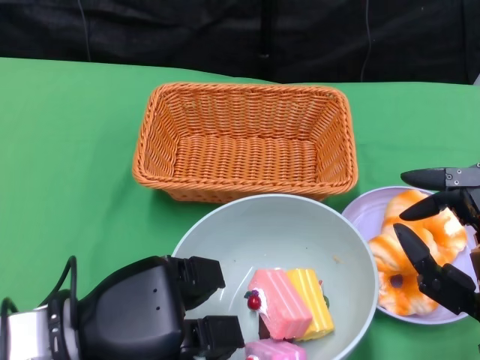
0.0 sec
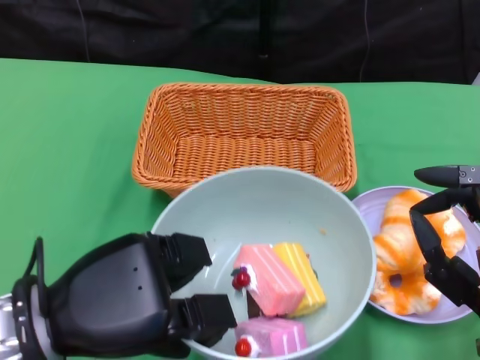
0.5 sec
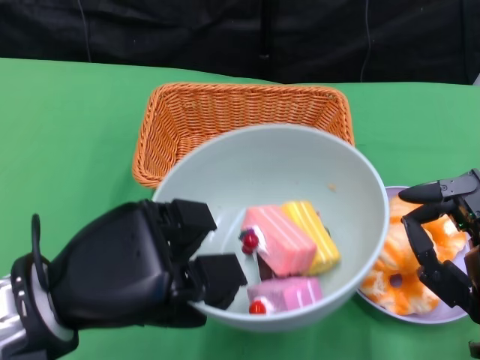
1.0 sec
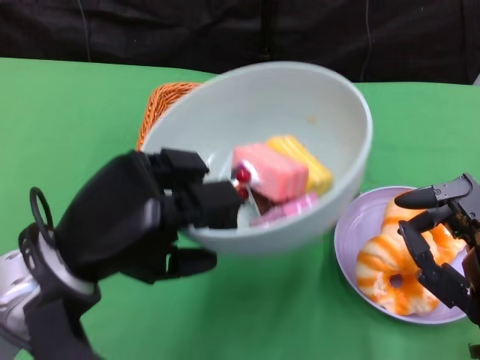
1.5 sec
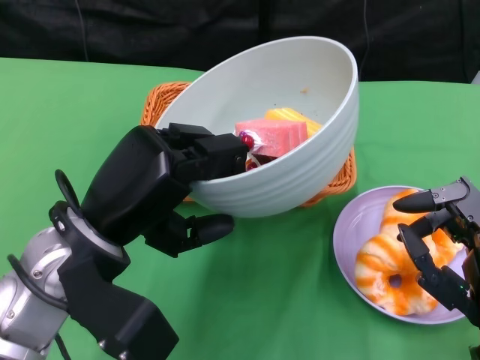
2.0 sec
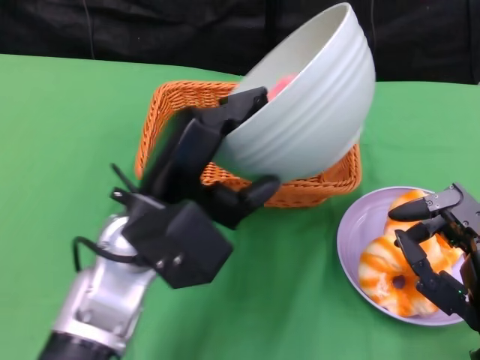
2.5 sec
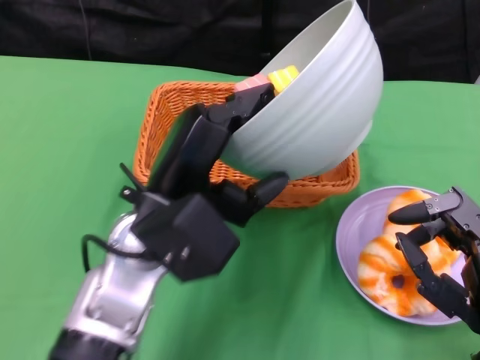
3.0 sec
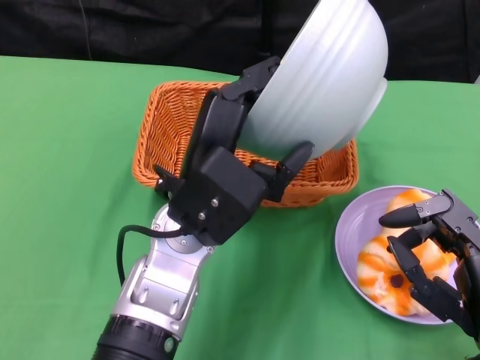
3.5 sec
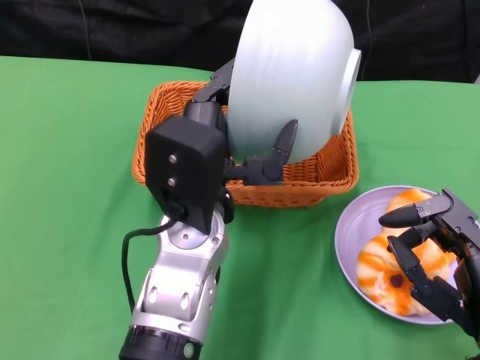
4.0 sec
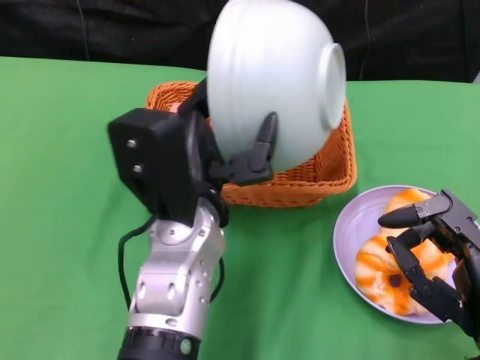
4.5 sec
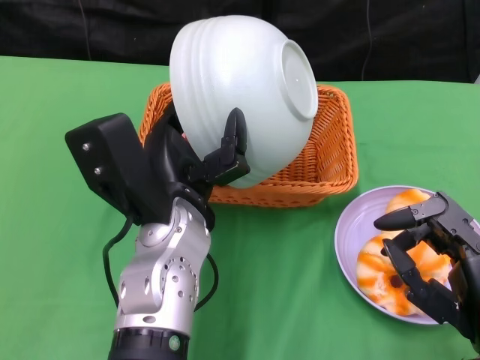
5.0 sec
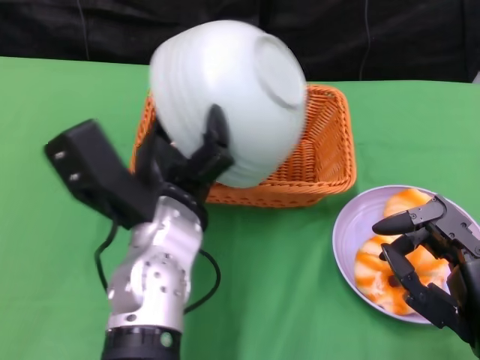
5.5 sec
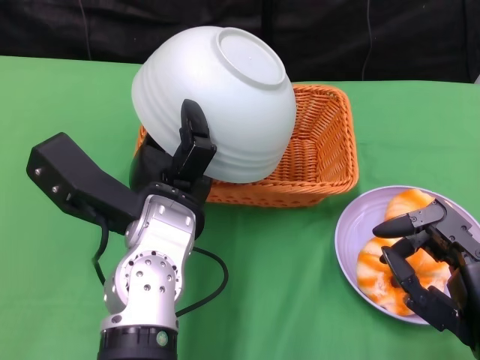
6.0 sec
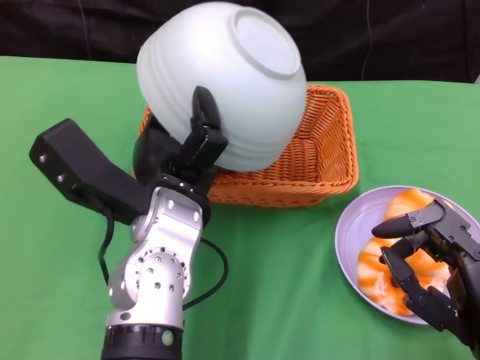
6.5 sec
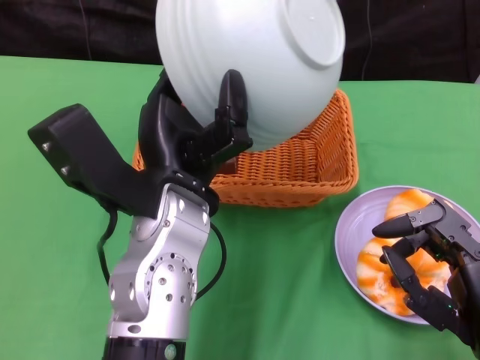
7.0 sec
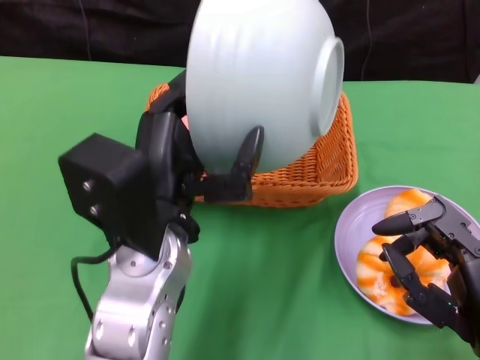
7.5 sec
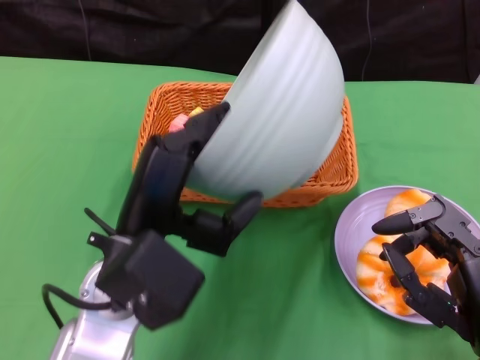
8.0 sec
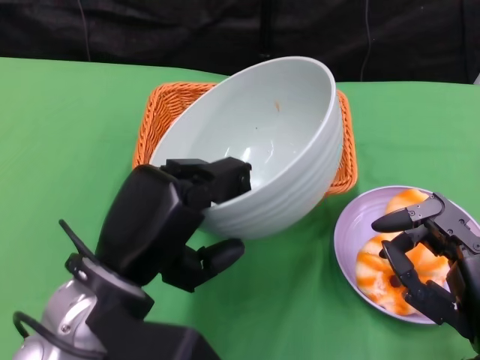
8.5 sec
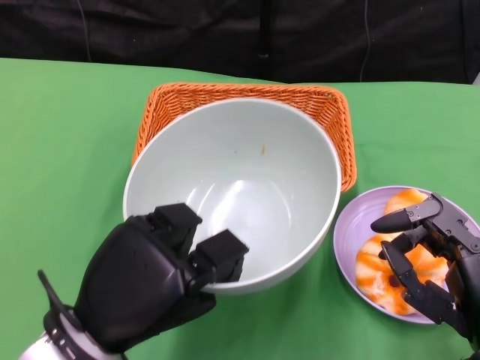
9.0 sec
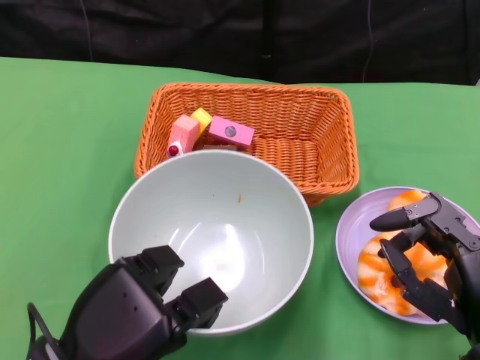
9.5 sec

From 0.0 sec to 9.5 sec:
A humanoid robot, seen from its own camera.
Step, from 0.0 sec to 6.5 sec: Pour the cake into the basket with the left gripper.
From 0.0 sec to 2.0 sec: The left hand is displaced upward by approximately 5 cm.
From 2.0 sec to 4.0 sec: The left hand travels to the right by about 10 cm.
From 7.5 sec to 9.5 sec: The left hand goes approximately 15 cm to the left, downward and backward.

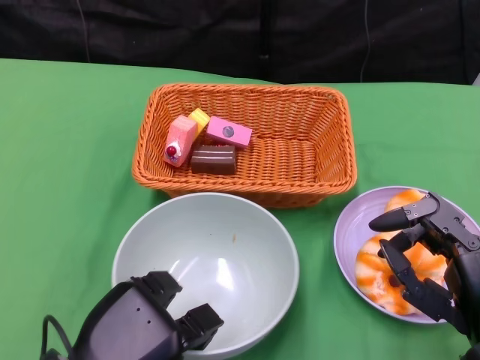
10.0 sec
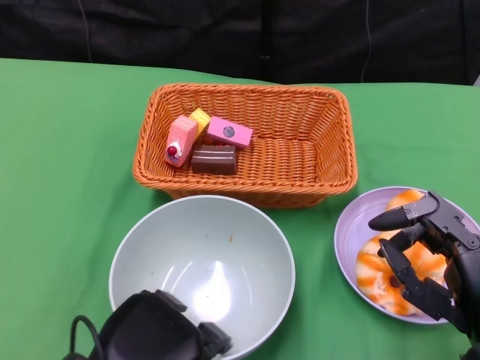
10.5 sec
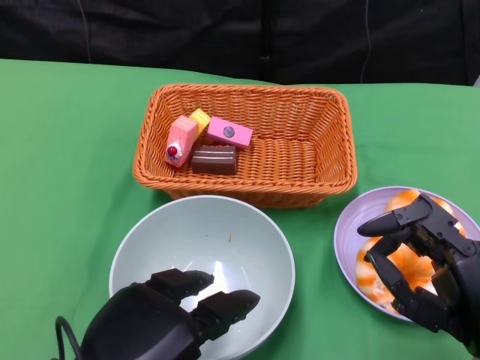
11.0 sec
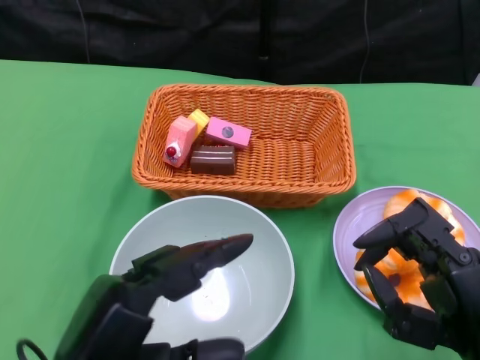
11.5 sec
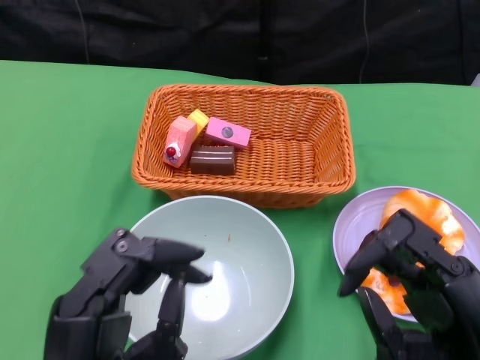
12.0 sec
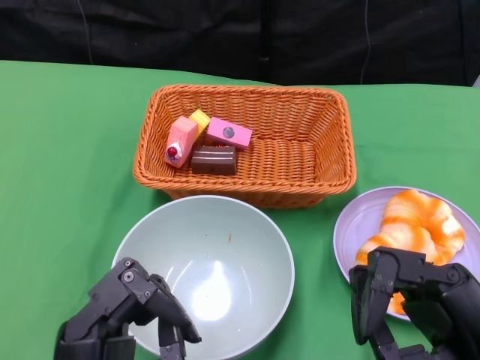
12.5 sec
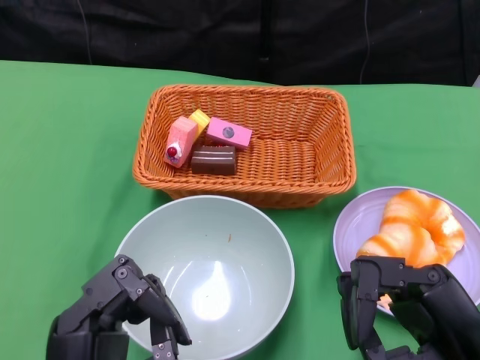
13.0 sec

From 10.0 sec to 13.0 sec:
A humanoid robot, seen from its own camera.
From 10.0 sec to 11.5 sec: The left hand moves upward, approximately 5 cm.

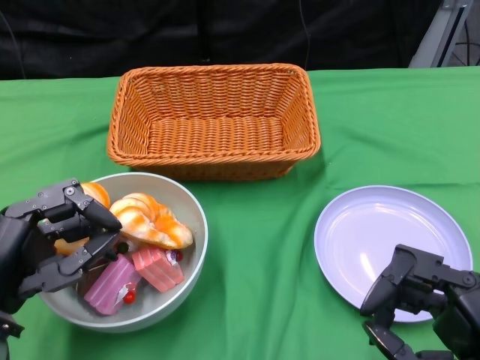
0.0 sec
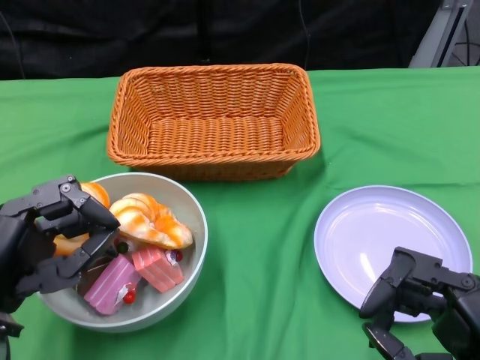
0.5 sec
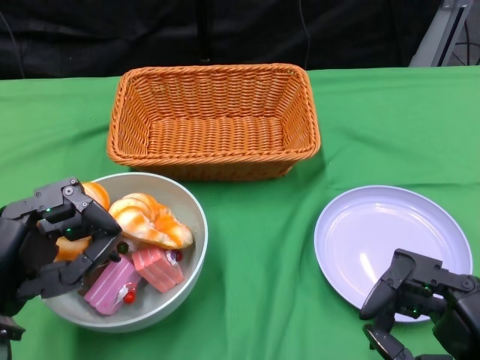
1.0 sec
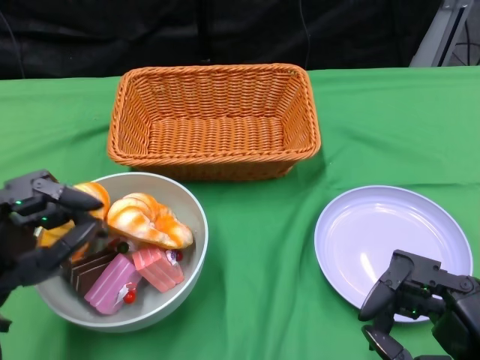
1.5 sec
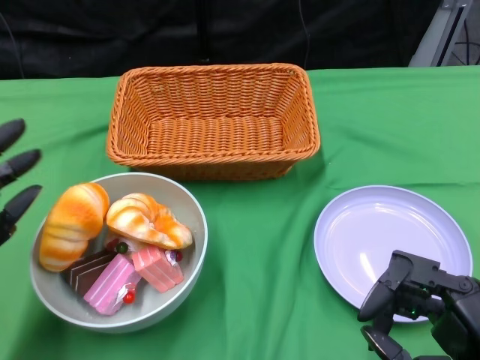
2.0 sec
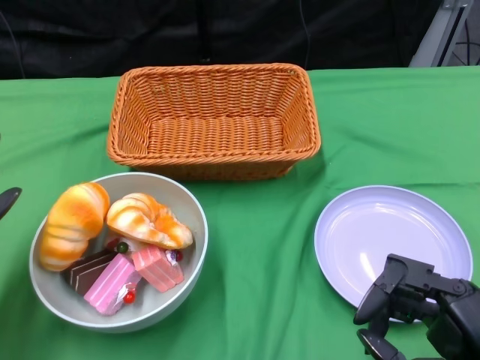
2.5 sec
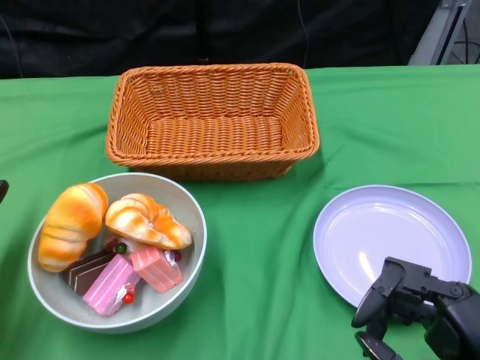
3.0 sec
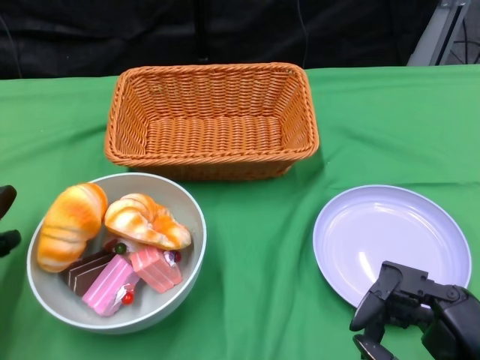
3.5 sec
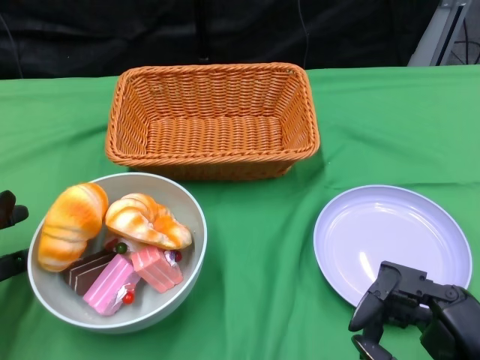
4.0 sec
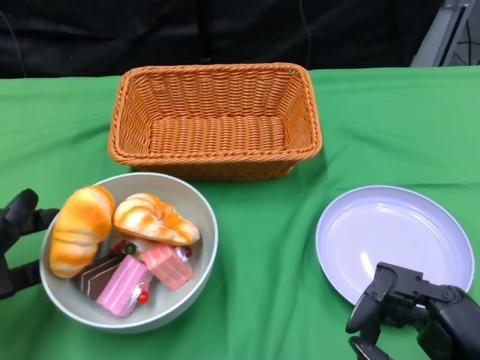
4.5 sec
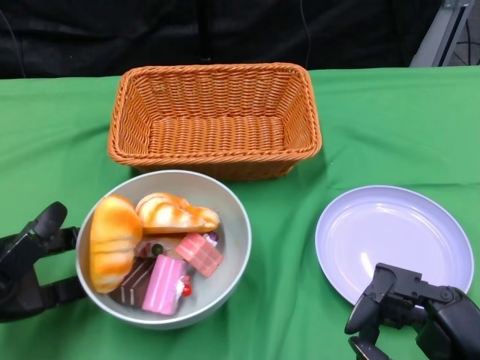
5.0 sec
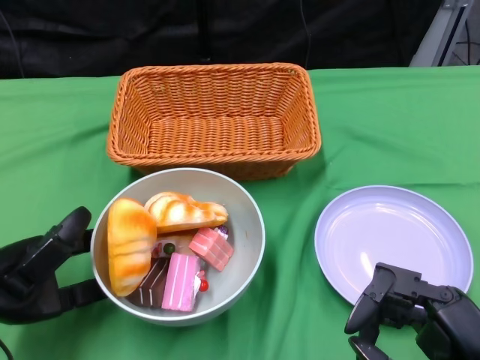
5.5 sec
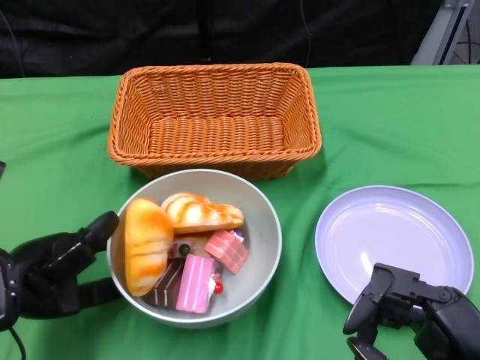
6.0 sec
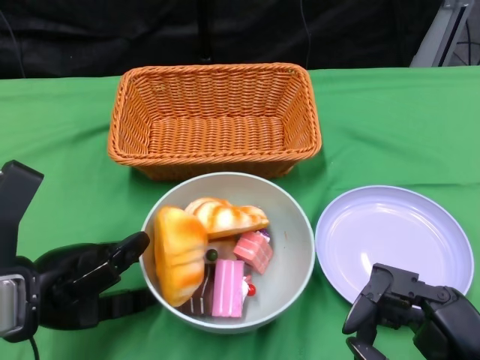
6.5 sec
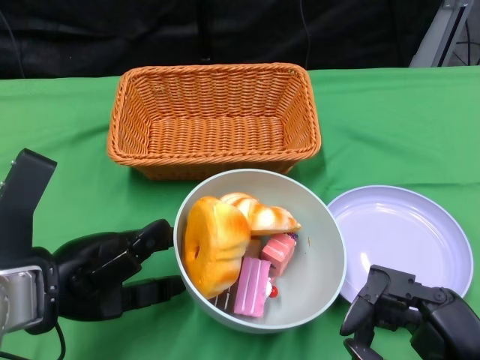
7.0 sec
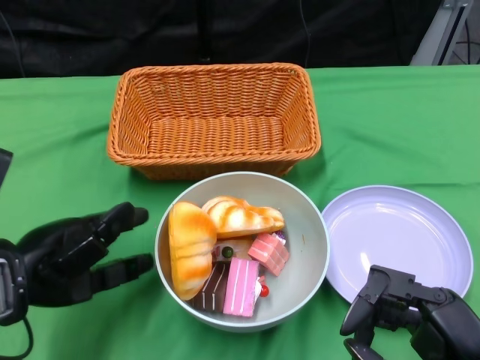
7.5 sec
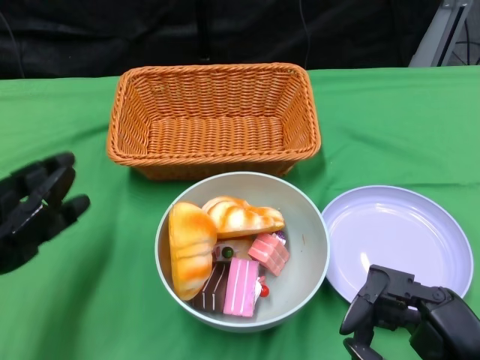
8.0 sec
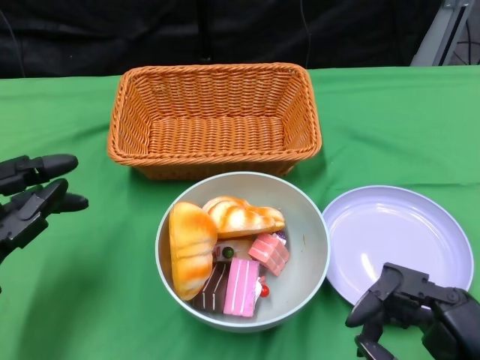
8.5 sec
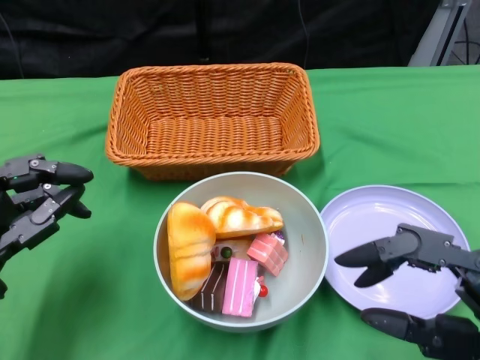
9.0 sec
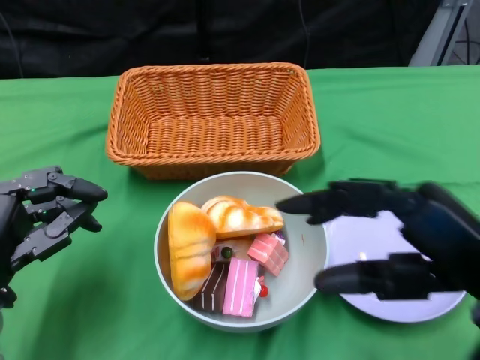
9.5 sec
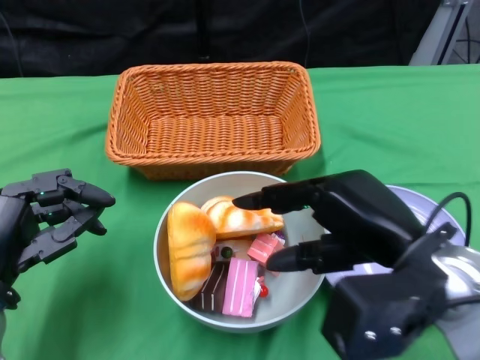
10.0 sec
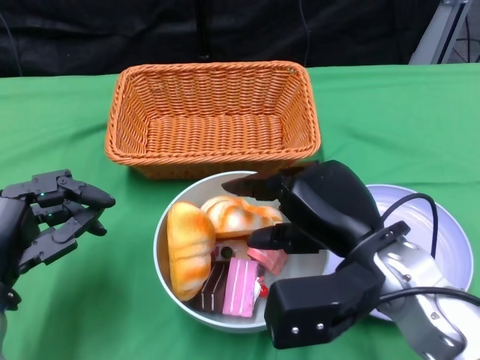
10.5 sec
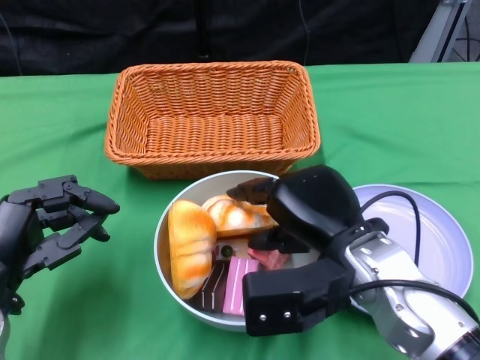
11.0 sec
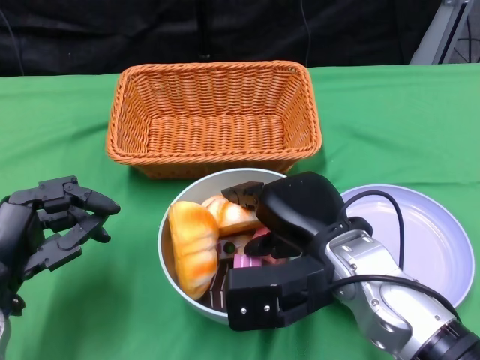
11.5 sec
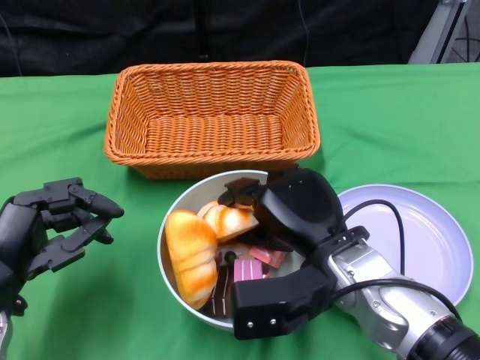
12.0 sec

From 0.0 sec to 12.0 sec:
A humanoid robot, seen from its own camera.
Step, from 0.0 sec to 7.5 sec: Push the bowl to the center of the table using the left gripper.
From 2.0 sec to 4.0 sec: The left hand is displaced forward and to the left by about 5 cm.
From 4.0 sec to 6.0 sec: The left hand travels to the right by roughly 10 cm.
From 8.0 sec to 10.0 sec: The right hand shifts about 15 cm forward, upward and to the left. Meanwhile the left hand moves downward, approximately 5 cm.
From 10.0 sec to 12.0 sec: The right hand travels to the left and downward by about 10 cm.

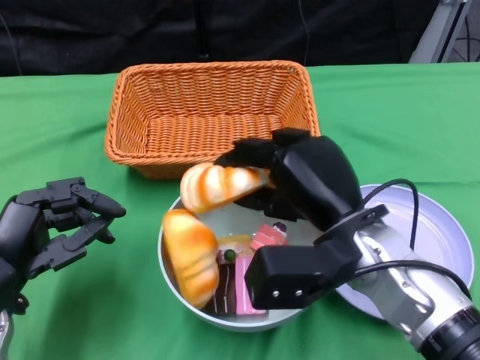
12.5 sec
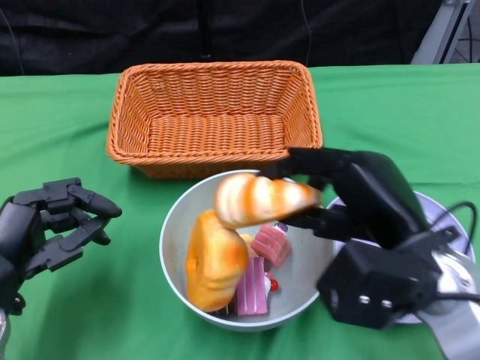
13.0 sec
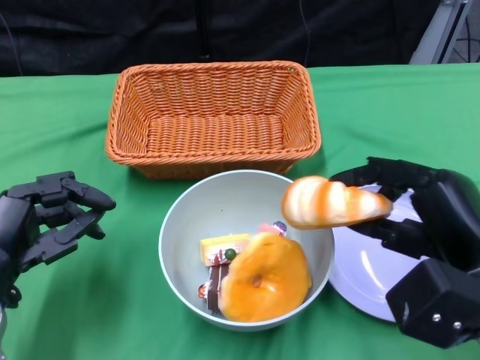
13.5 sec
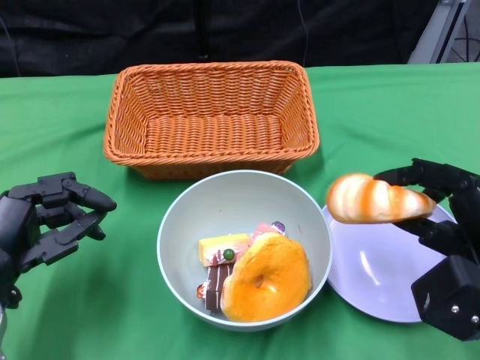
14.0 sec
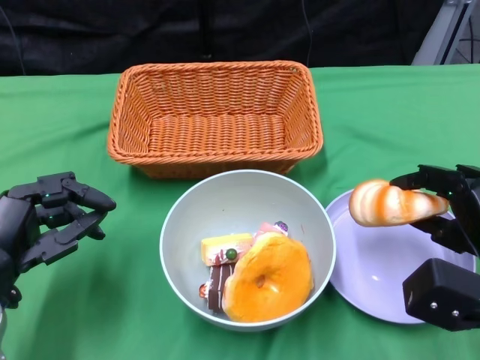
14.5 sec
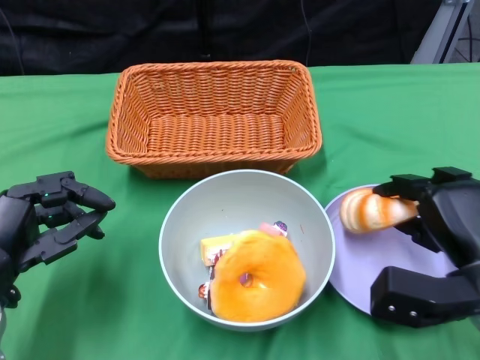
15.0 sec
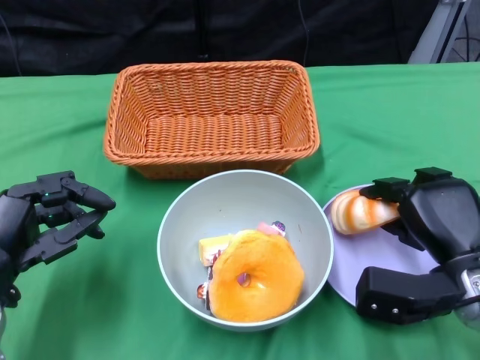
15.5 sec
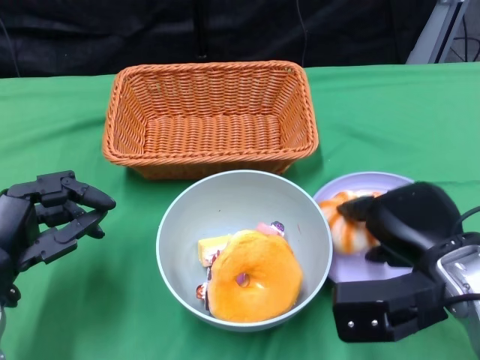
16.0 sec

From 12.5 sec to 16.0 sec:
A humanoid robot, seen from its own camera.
From 12.5 sec to 14.5 sec: The right hand is displaced to the right by some 15 cm.
From 14.5 sec to 16.0 sec: The right hand travels to the left by about 5 cm.
